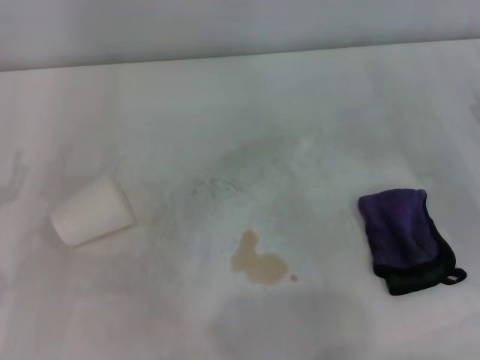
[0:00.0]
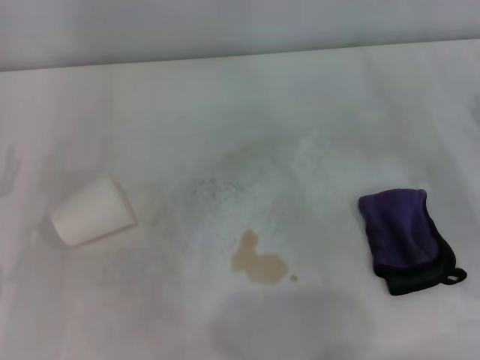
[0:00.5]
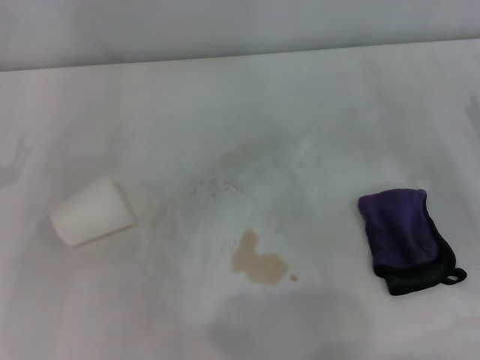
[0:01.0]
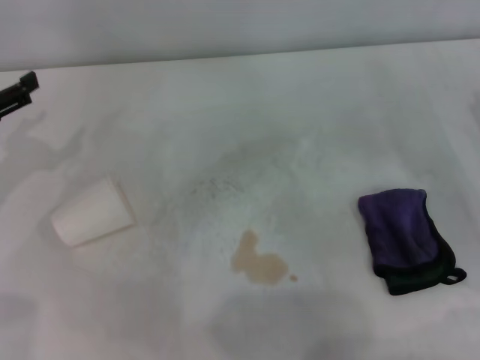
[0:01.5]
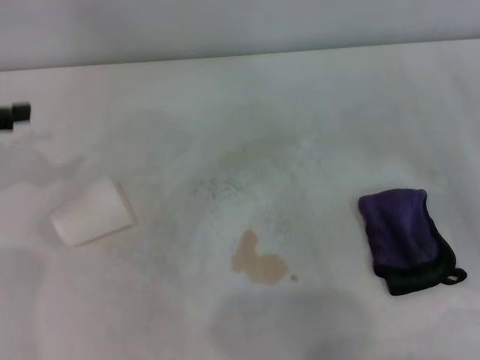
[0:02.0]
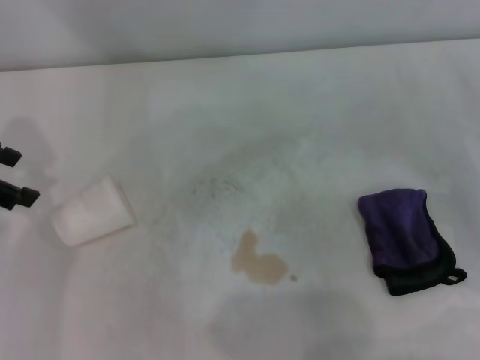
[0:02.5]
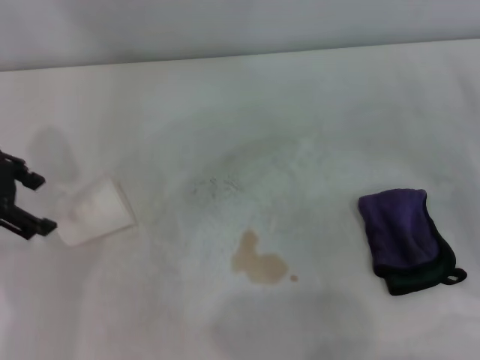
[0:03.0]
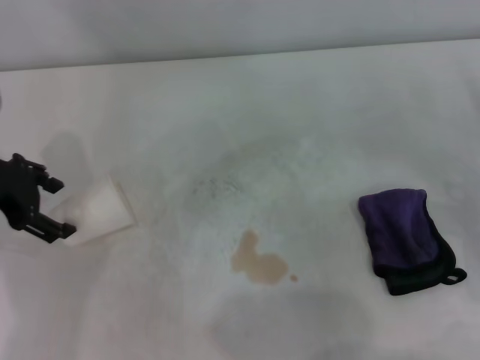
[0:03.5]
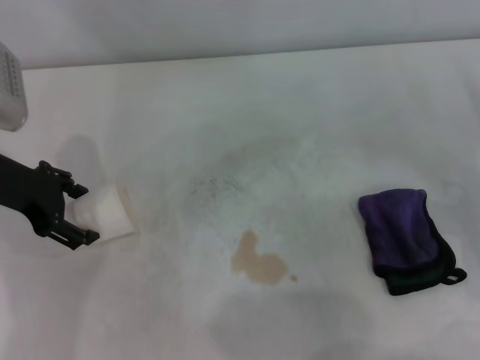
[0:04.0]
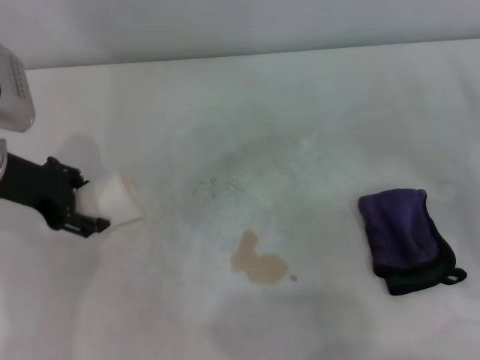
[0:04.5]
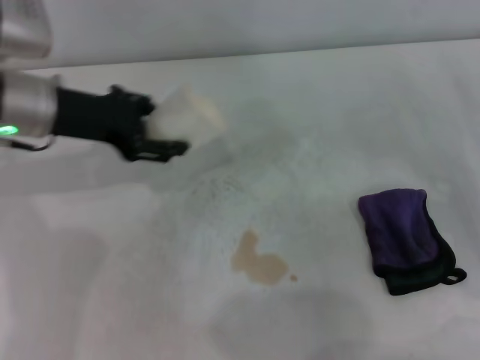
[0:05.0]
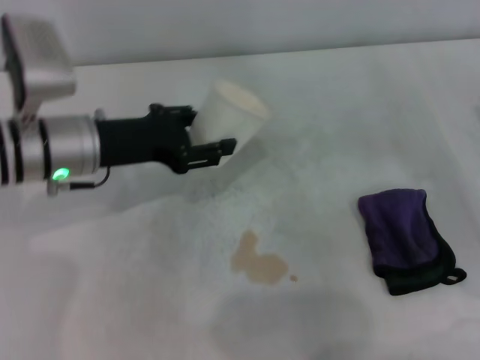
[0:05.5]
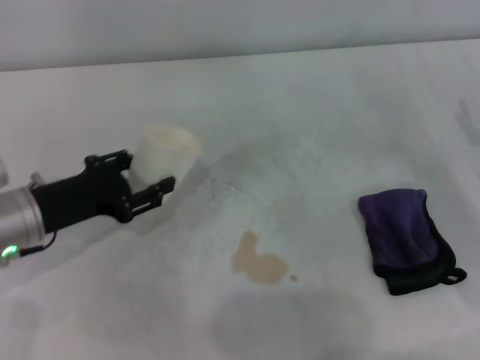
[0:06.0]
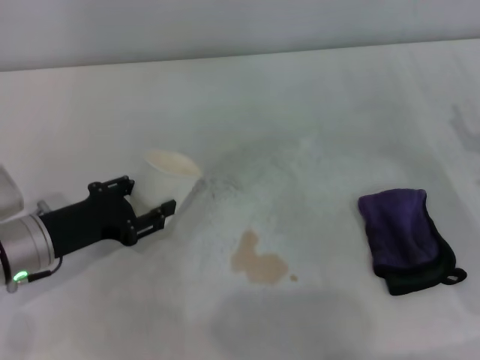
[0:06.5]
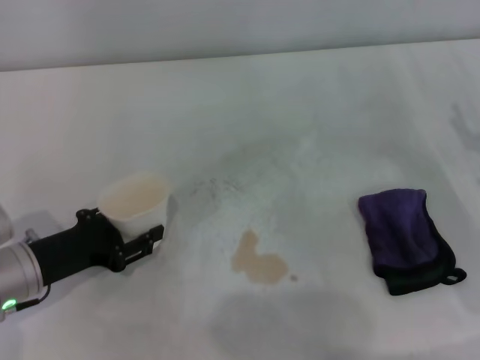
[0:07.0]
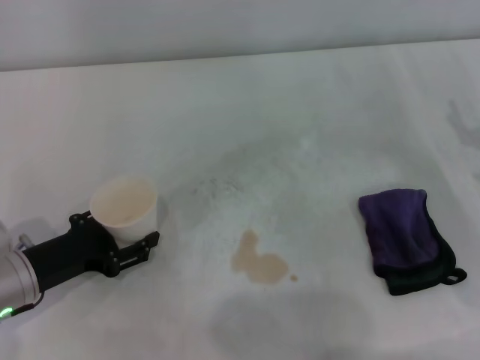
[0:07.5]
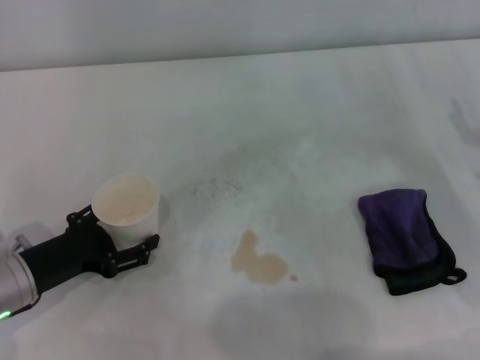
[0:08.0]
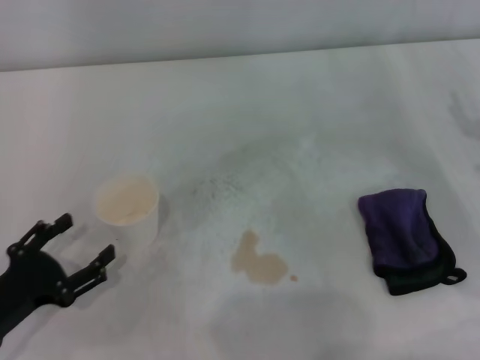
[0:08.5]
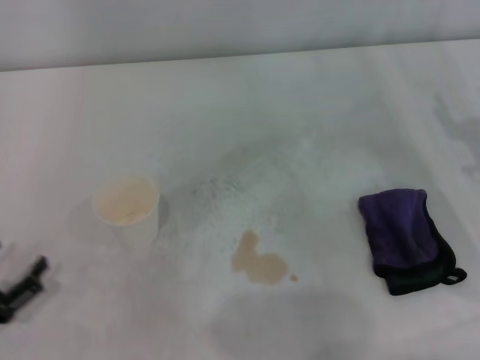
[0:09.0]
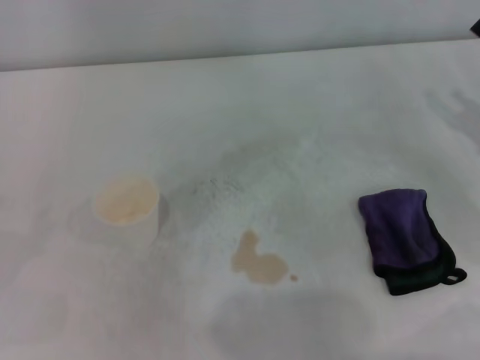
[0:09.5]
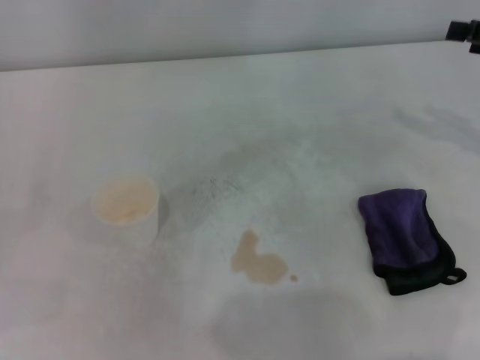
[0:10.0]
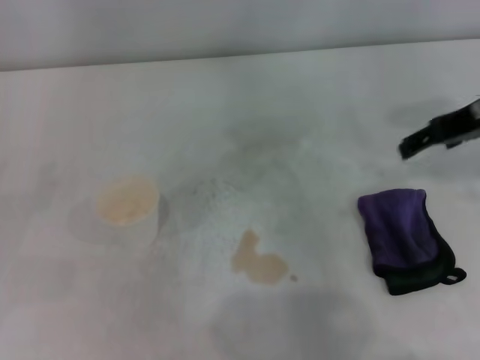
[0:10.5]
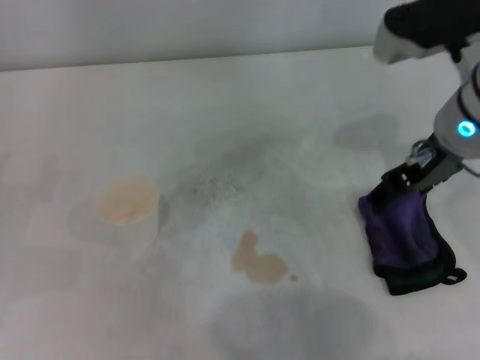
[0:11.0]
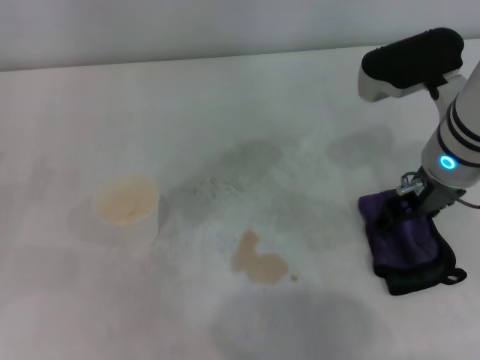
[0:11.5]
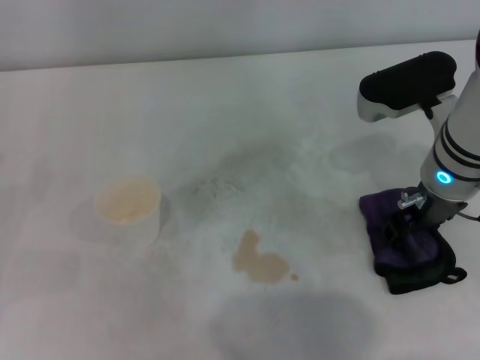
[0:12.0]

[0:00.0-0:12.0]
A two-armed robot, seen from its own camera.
Step, 0:00.0 to 0:04.0: Grasp the paper cup with the left gripper.
Step, 0:04.5 to 0:07.5: Stand the paper cup upright with the left gripper.
0:02.0 to 0:04.0: The left gripper heads to the right and downward, covering about 10 cm.
0:04.0 to 0:06.0: The left gripper travels downward and backward by some 10 cm, and closes its fingers.
0:06.0 to 0:08.0: The left gripper changes place by roughly 5 cm, and opens up.
0:08.0 to 0:10.0: The left gripper travels to the left by roughly 15 cm.
0:10.0 to 0:12.0: The right gripper goes roughly 15 cm to the left.

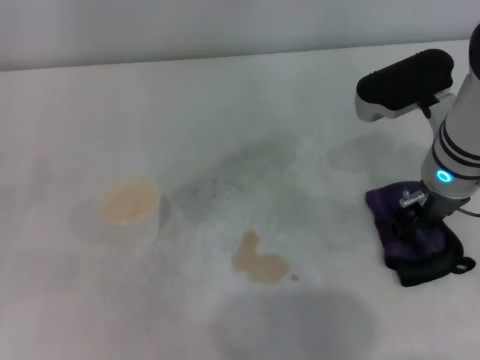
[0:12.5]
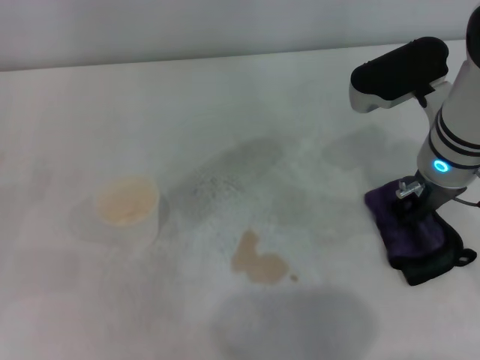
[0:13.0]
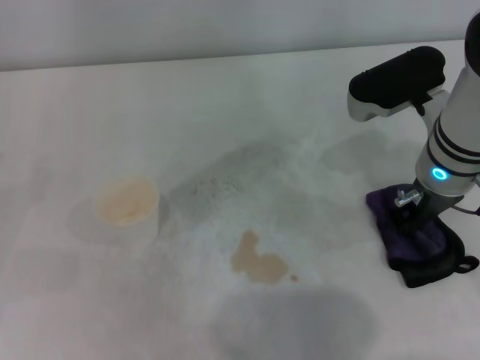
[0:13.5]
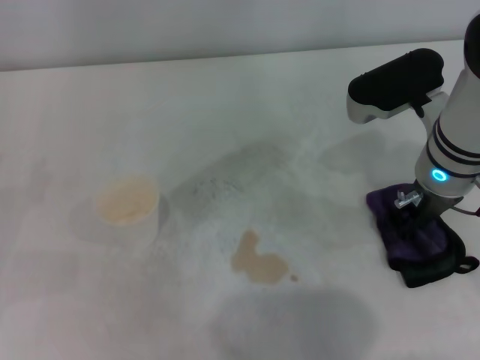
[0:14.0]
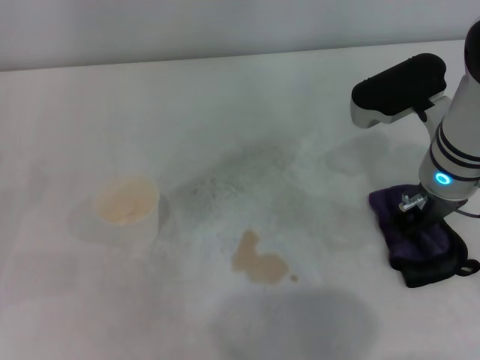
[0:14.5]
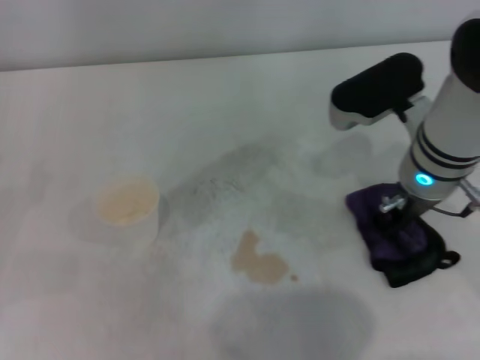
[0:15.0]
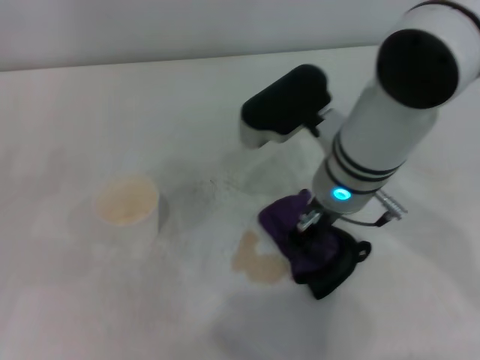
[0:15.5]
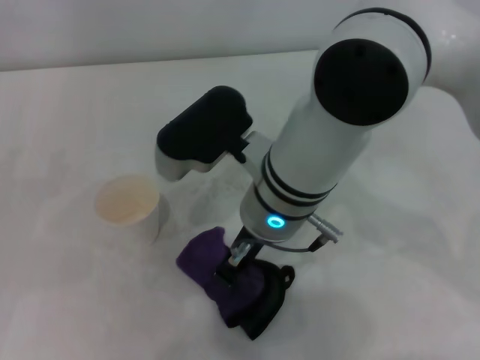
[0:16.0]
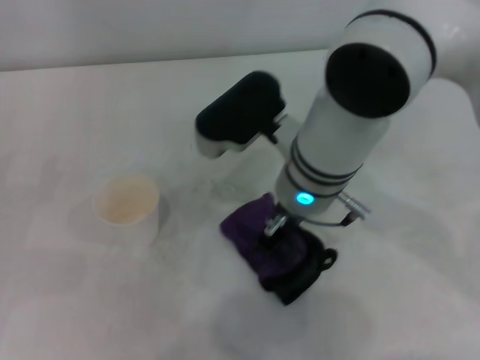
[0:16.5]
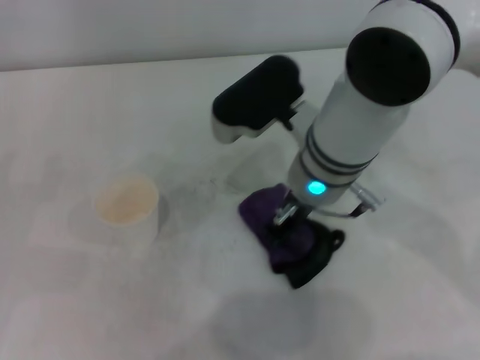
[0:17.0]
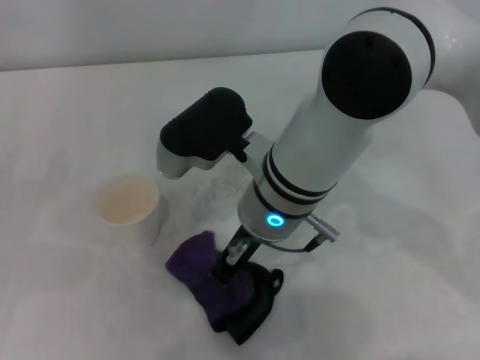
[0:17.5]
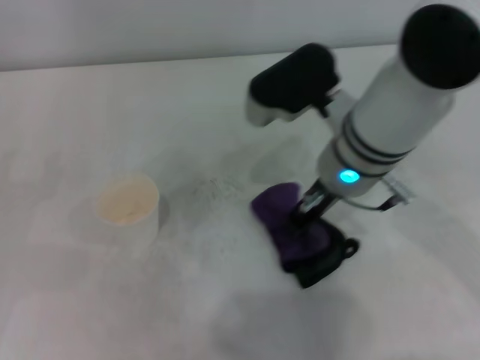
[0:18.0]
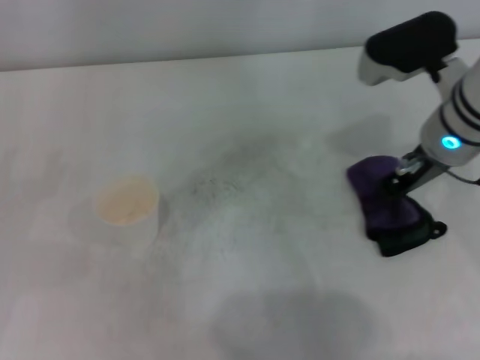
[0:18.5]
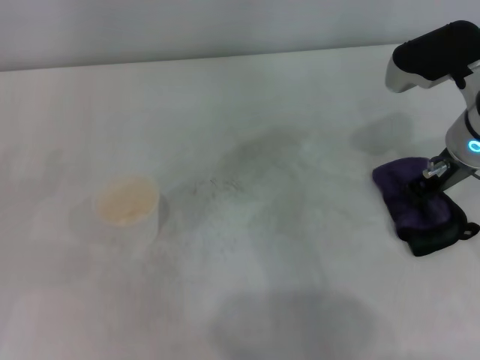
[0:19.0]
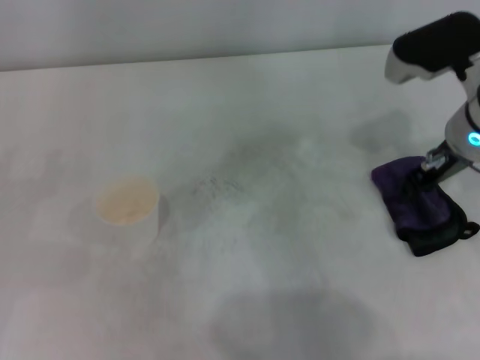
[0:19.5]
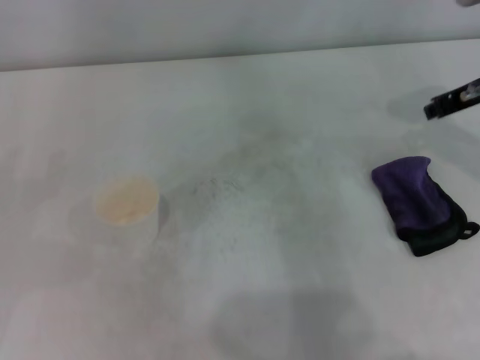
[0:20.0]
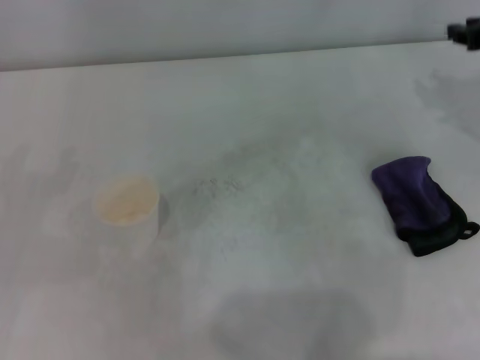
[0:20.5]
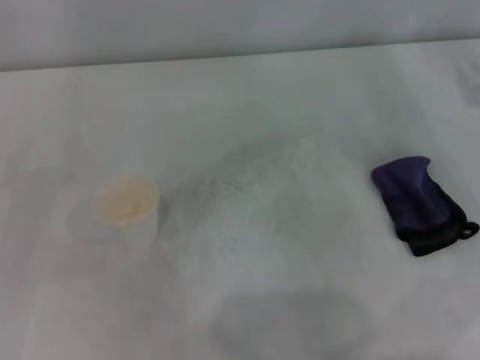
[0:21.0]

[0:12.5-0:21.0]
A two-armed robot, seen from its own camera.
Step, 0:12.5 to 0:14.5: Grasp the rag with the right gripper.
Step, 0:15.0 to 0:18.0: Wipe the stains off the table with the right gripper.
0:12.5 to 0:14.5: The right gripper closes its fingers.
0:14.5 to 0:16.5: The right gripper moves to the left, roughly 15 cm.
0:16.5 to 0:19.0: The right gripper shifts roughly 15 cm to the right.
0:19.0 to 0:21.0: The right gripper moves to the right, roughly 15 cm.
